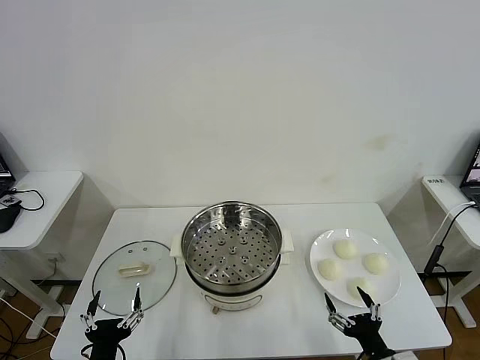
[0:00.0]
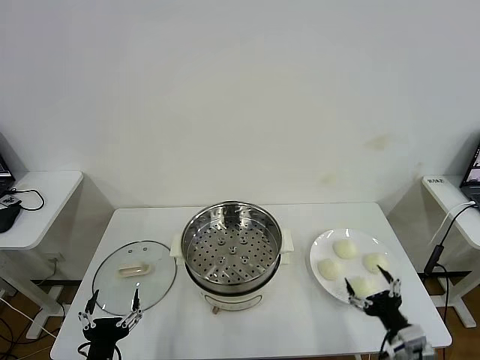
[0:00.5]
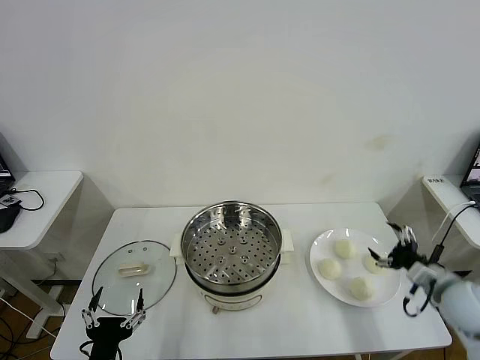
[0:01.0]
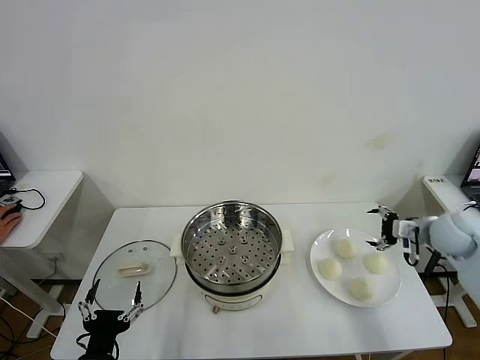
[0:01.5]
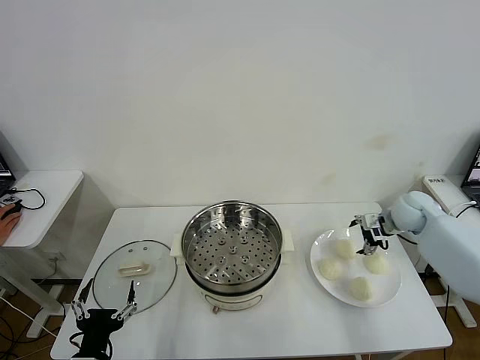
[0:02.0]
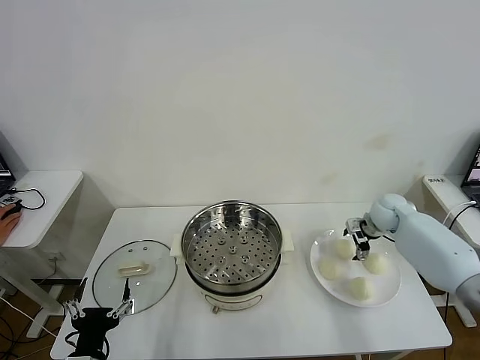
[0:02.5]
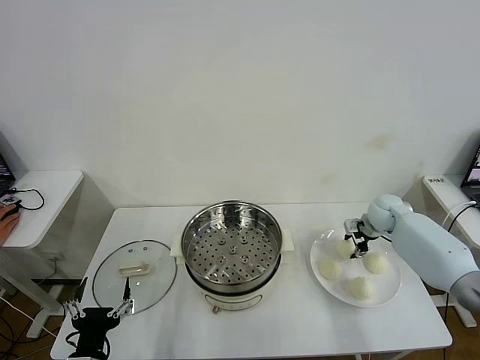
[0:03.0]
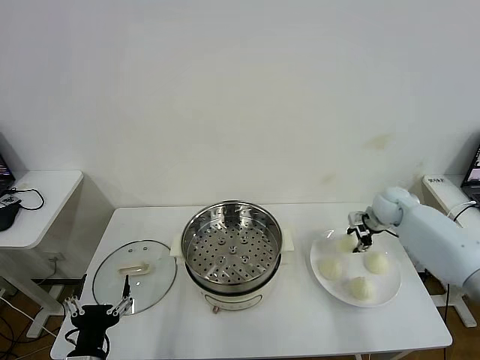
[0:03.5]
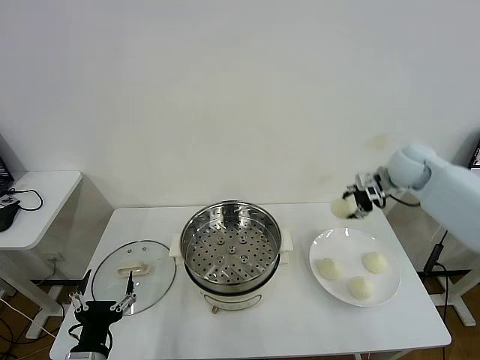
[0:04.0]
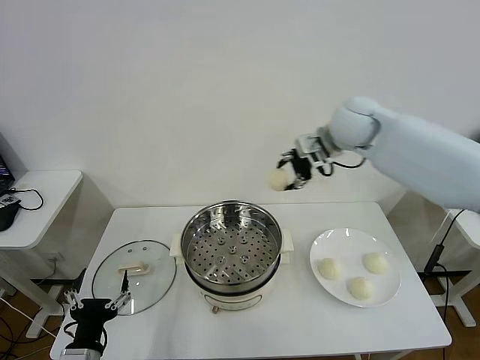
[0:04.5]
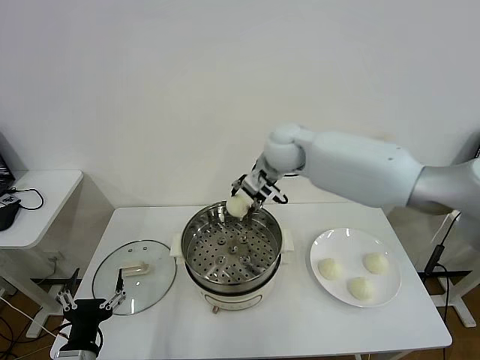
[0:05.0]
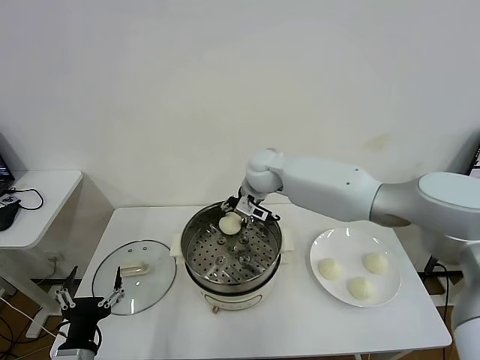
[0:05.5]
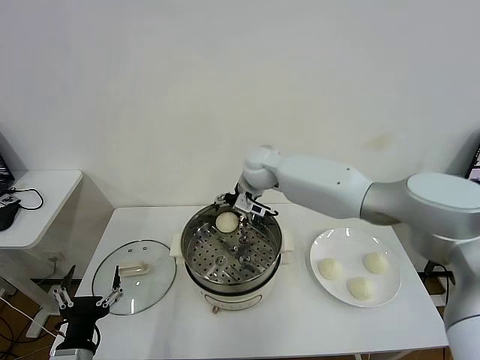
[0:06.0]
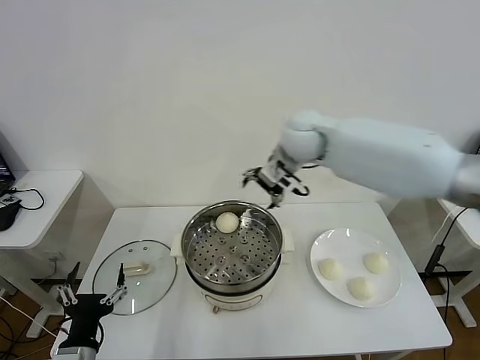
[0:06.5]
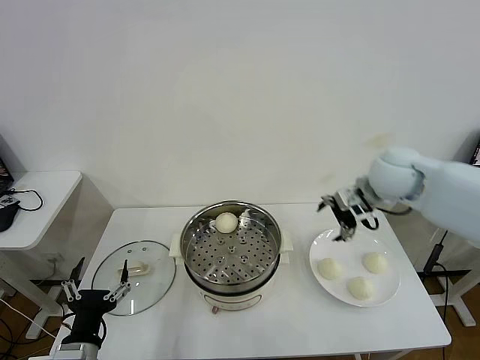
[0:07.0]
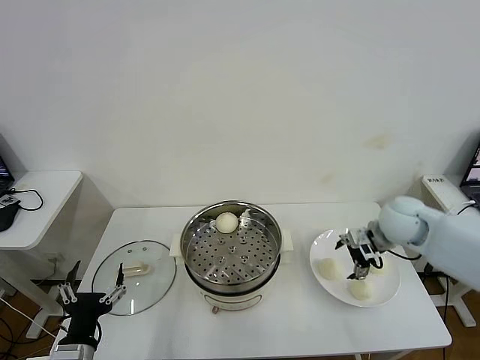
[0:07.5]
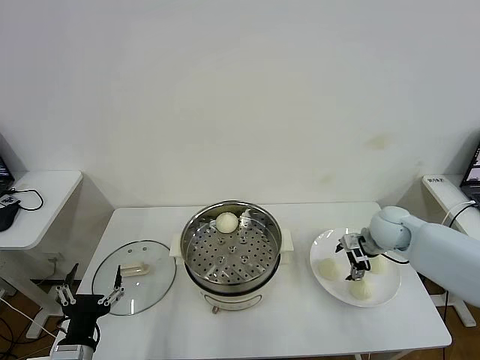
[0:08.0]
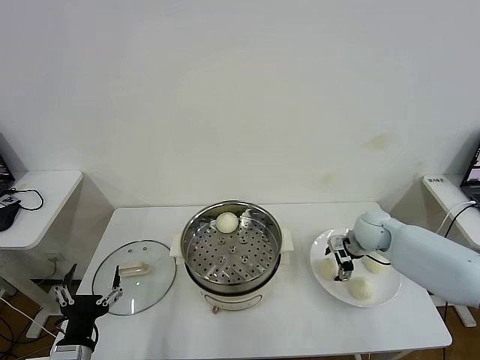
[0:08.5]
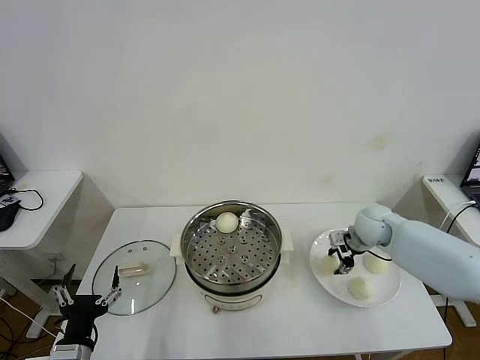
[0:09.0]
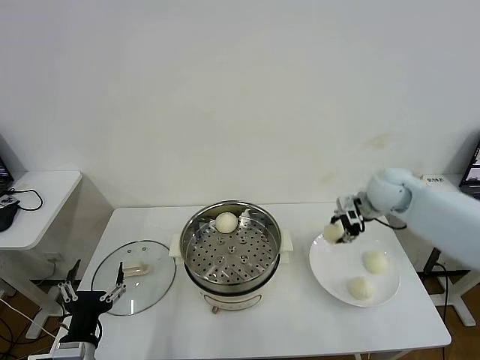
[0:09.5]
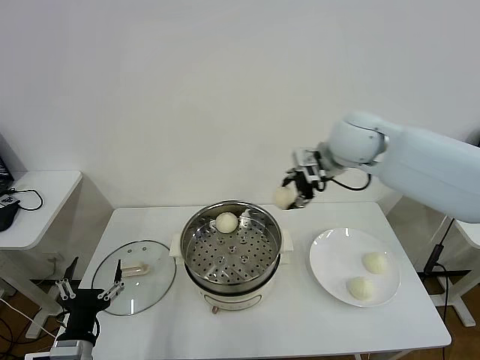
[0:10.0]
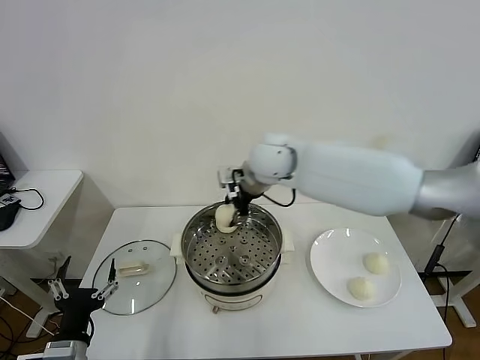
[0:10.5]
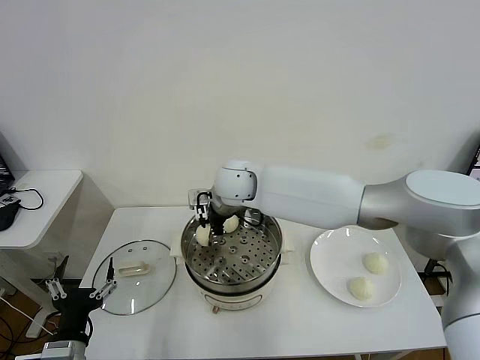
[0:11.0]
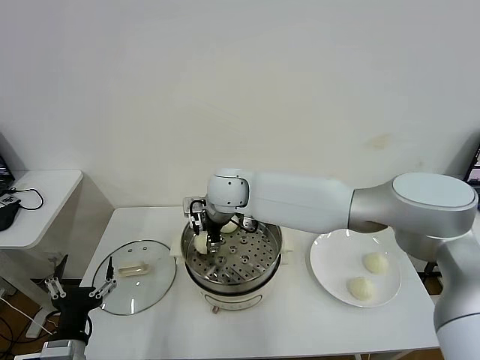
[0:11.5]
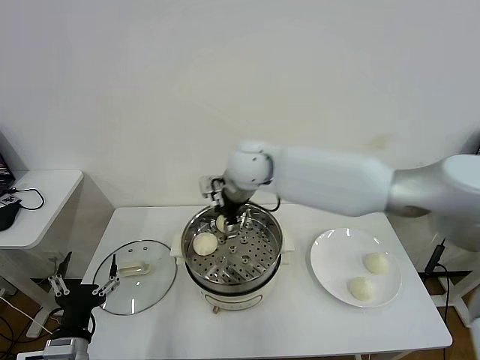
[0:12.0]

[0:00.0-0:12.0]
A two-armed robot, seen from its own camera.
Task of the whole recording: take steamed baozi put them in steamer then cover it.
Step, 0:00.0 to 0:02.5: Grasp the baozi in the plate with right gripper.
Step, 0:03.0 to 0:05.5: Place the baozi on the steamer with right gripper.
Step, 0:06.0 to 0:08.5: Grasp the baozi in the plate with right gripper.
Step, 0:09.0 to 0:11.5: Place the baozi on the steamer with right gripper.
0:02.0 to 0:04.0: The right gripper heads upward, covering some 20 cm, and closes up.
0:04.0 to 0:06.0: The right gripper heads to the left, covering about 30 cm, and opens.
0:06.0 to 0:08.0: The right gripper shifts some 35 cm to the right and downward.
0:08.0 to 0:10.0: The right gripper goes about 30 cm upward and to the left, and closes its fingers.
0:10.0 to 0:12.0: The right gripper is displaced to the left by approximately 10 cm, and opens its fingers.

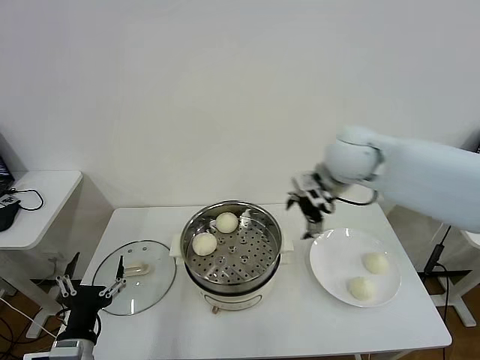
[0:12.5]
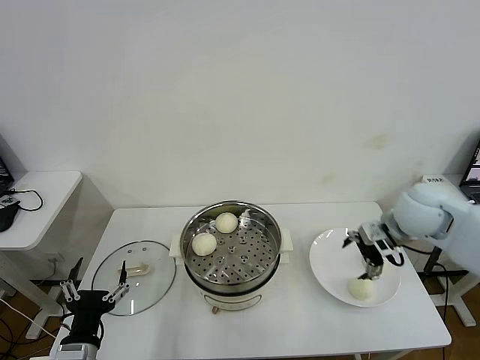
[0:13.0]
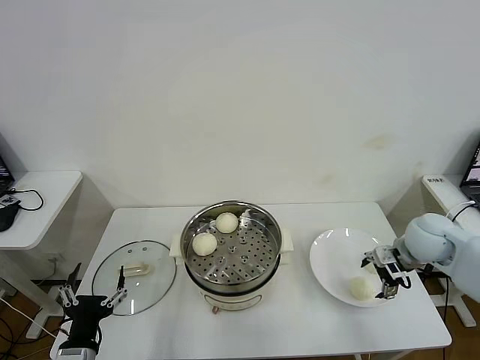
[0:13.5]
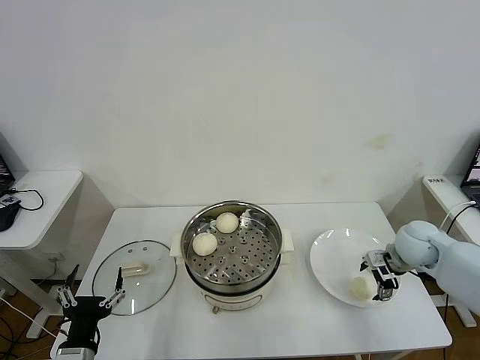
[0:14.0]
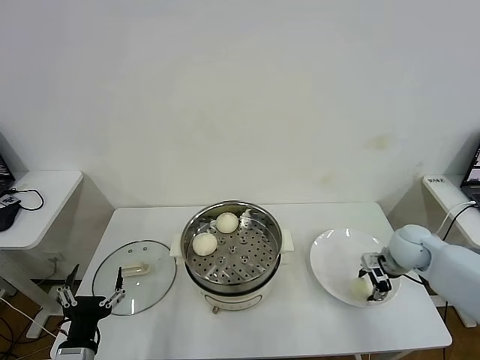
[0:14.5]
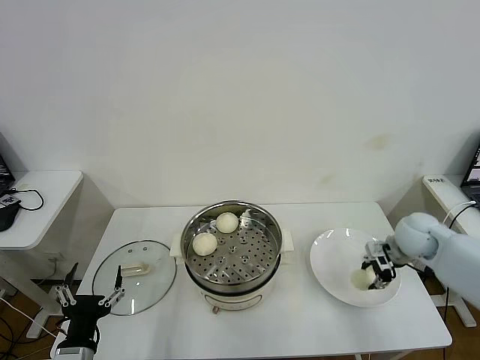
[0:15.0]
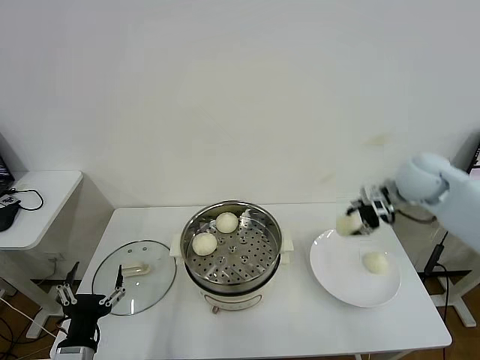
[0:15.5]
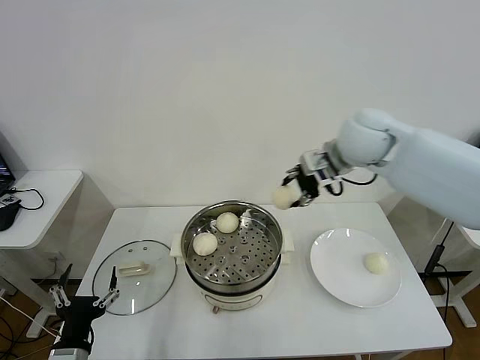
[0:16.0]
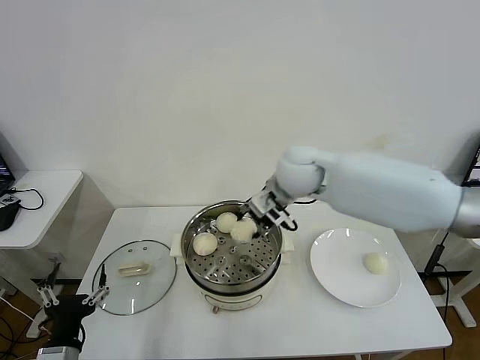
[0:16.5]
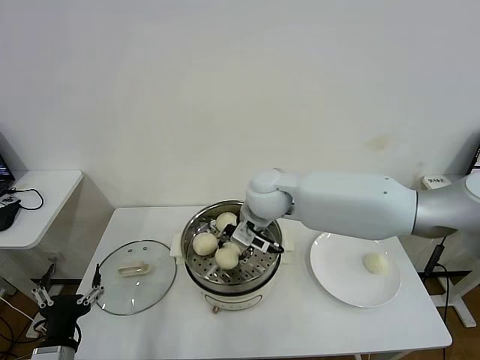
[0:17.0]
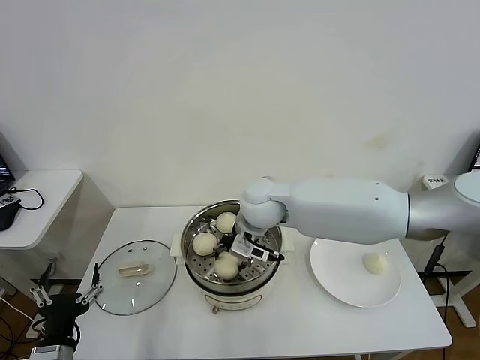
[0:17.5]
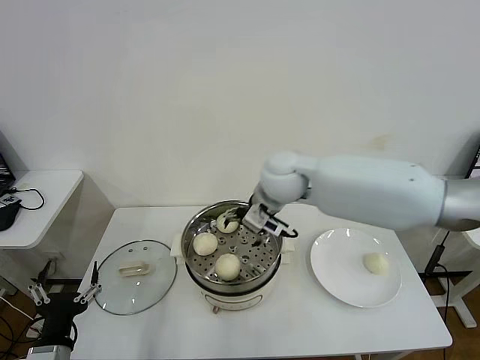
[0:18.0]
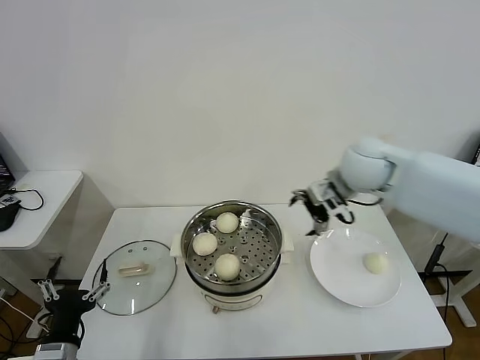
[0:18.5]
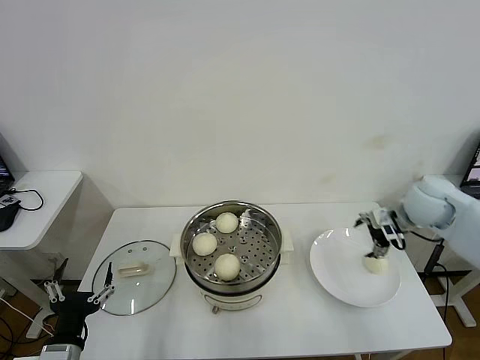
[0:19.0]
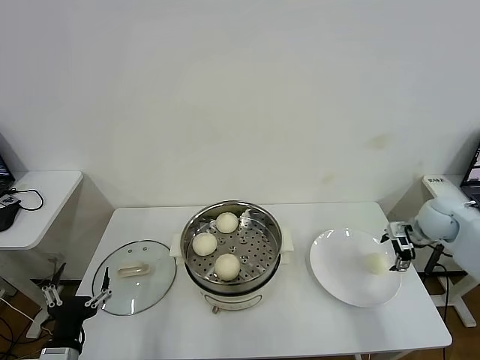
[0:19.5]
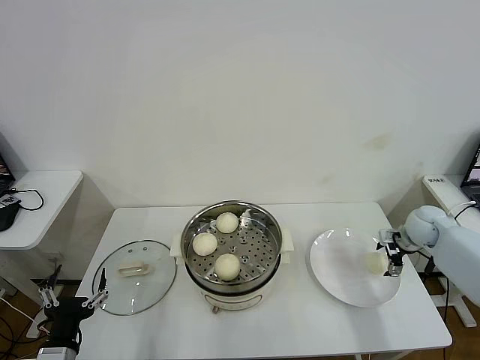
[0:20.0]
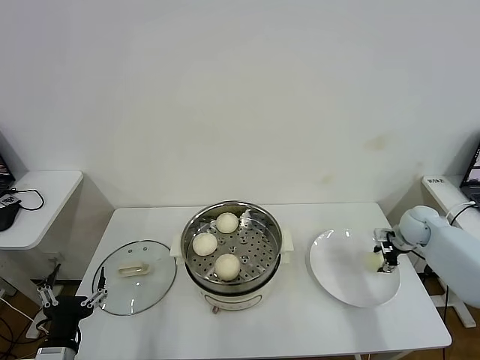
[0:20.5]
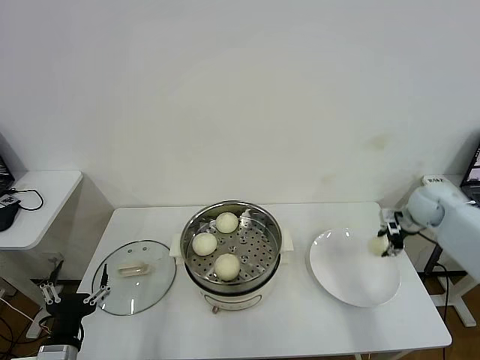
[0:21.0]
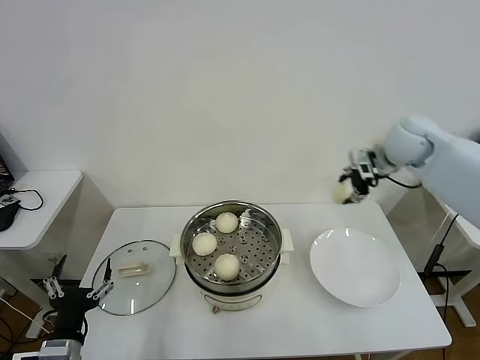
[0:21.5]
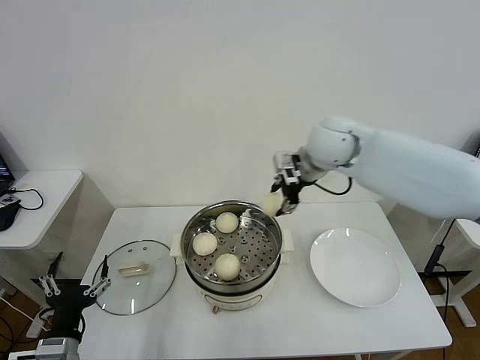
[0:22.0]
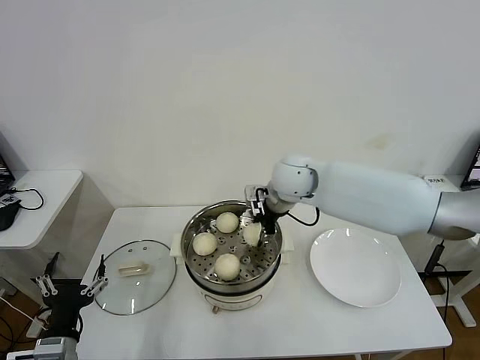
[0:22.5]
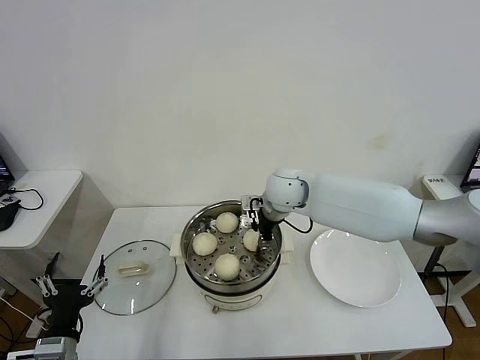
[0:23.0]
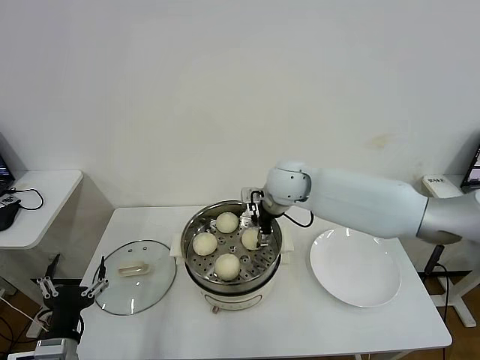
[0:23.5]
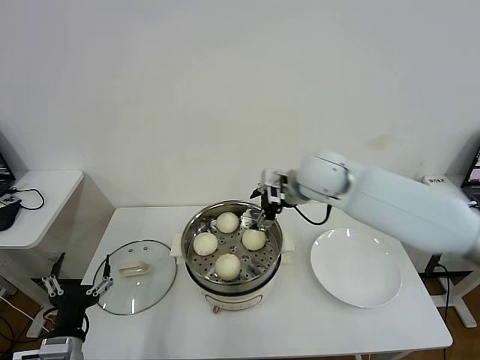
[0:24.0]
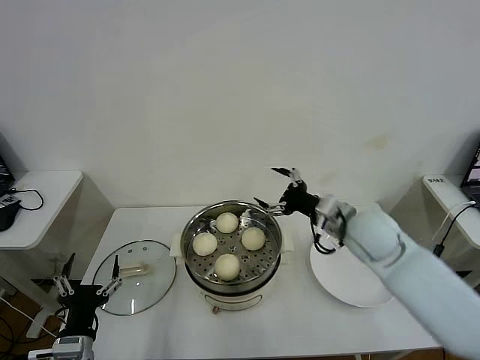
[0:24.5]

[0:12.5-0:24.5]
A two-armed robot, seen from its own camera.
Task of the whole recording: take steamed baozi put them in steamer then cover it.
Step, 0:12.5 to 0:14.5: Grasp the baozi in the plate with right gripper.
Step, 0:15.0 to 0:17.5: Place the baozi on the steamer with right gripper.
Step, 0:18.0 to 0:20.0: Grasp the baozi in the plate with right gripper.
Step, 0:20.5 to 0:23.0: Place the baozi on the steamer with right gripper.
0:12.5 to 0:14.5: The right gripper moves downward and to the right, roughly 25 cm, and closes up.
0:14.5 to 0:16.5: The right gripper heads to the left and upward, covering roughly 35 cm.
0:16.5 to 0:18.5: The right gripper travels to the right by roughly 15 cm, and opens up.
0:18.5 to 0:20.5: The right gripper moves downward and to the right, about 30 cm, and closes.
0:20.5 to 0:22.5: The right gripper moves to the left and upward, roughly 40 cm.
0:22.5 to 0:24.5: The right gripper heads to the right and backward, covering approximately 20 cm, and opens.

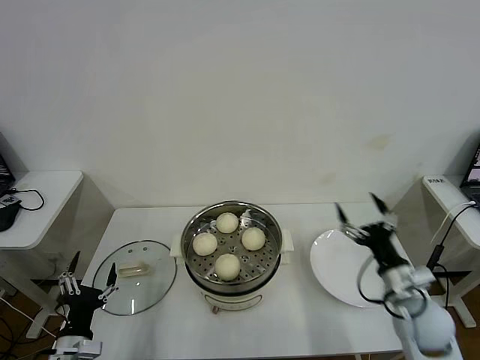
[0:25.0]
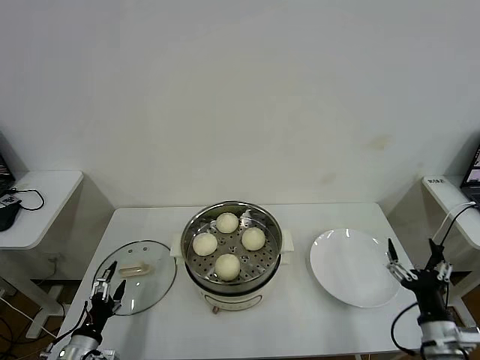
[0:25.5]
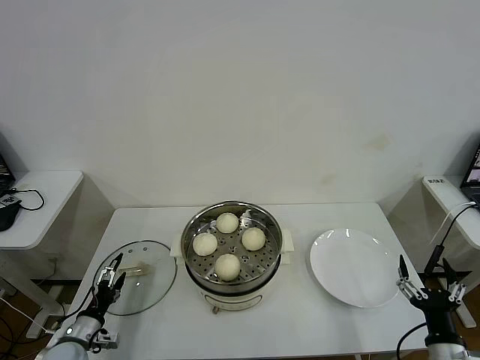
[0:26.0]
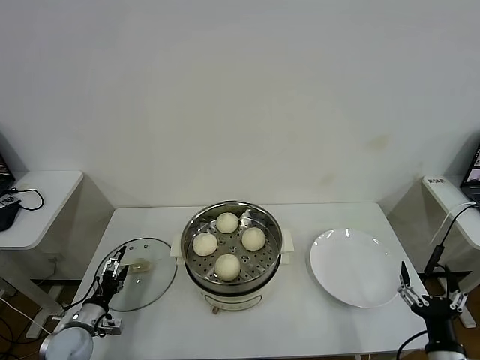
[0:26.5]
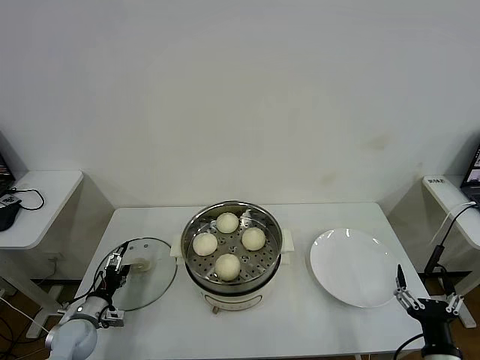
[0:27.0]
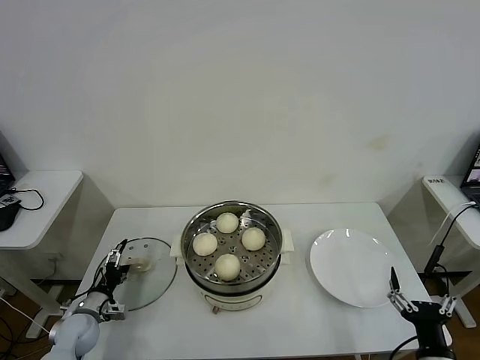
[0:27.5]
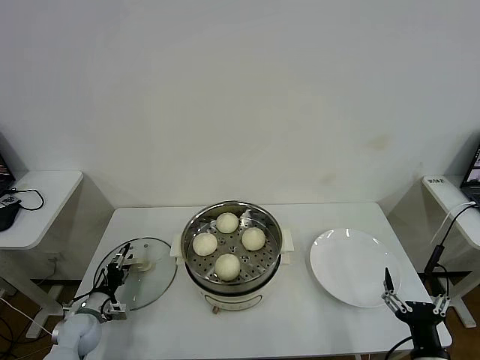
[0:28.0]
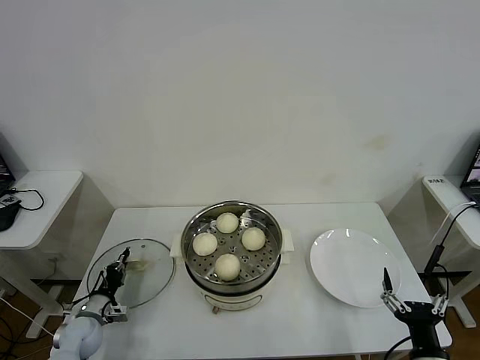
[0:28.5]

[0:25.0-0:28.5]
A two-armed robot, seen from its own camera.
Task of the whole recording: take steamed baozi put them in steamer then cover it.
Step, 0:25.0 to 0:28.5: Grasp the pot lid with left gripper.
0:25.0 to 0:27.0: The left gripper heads forward, downward and to the left, covering about 15 cm. The right gripper moves backward, some 15 cm.
0:27.0 to 0:28.5: The left gripper closes.
